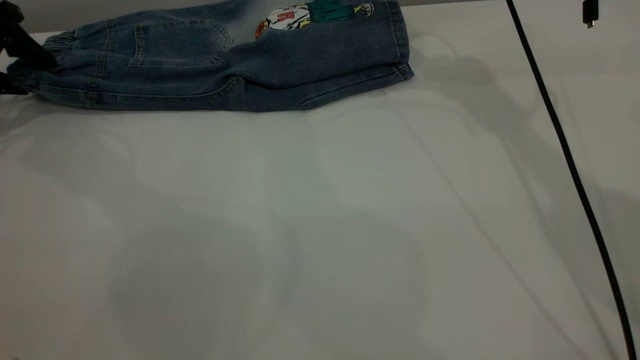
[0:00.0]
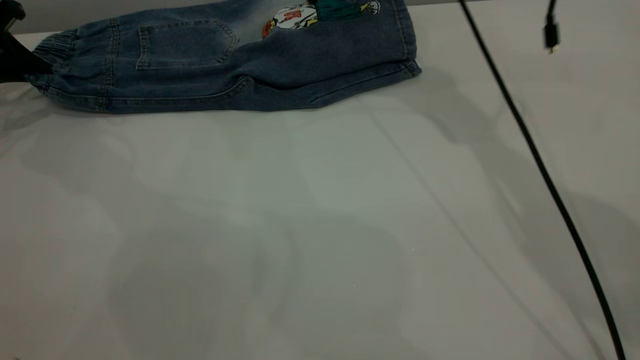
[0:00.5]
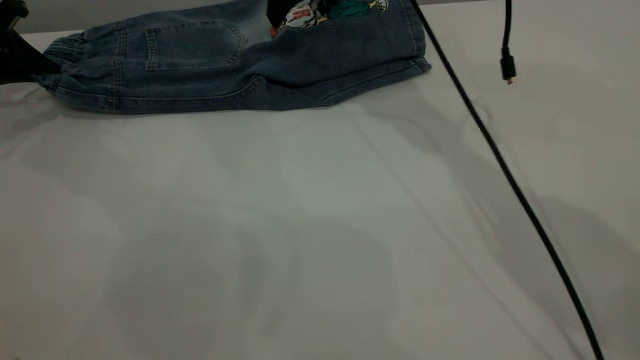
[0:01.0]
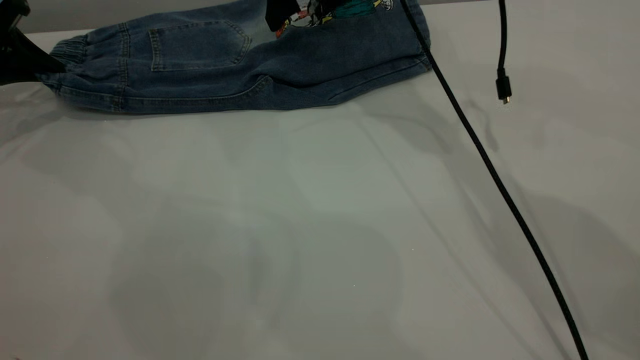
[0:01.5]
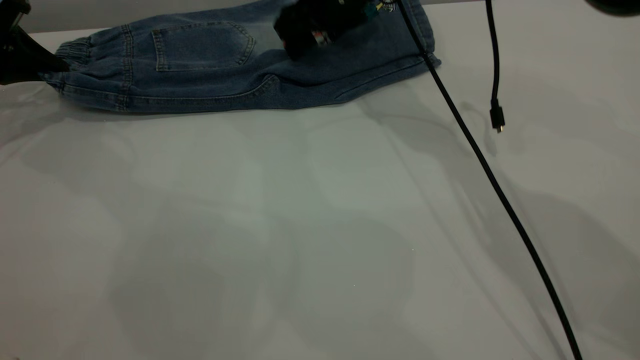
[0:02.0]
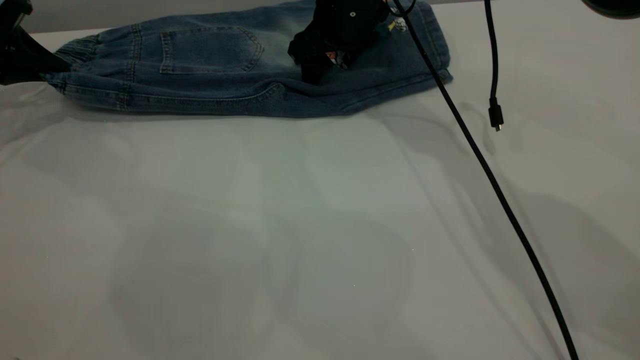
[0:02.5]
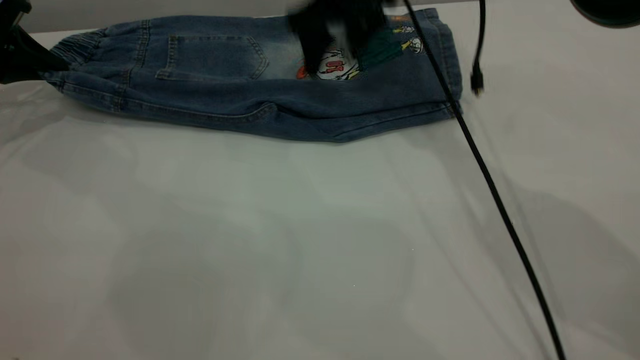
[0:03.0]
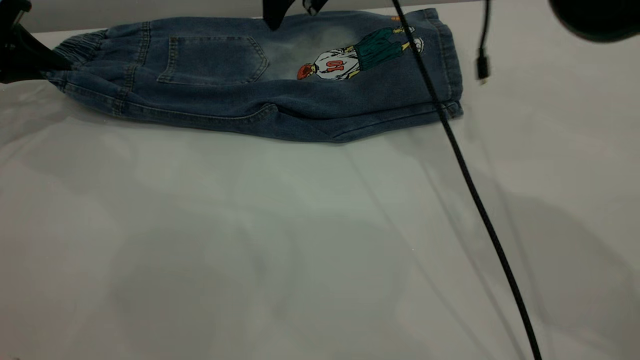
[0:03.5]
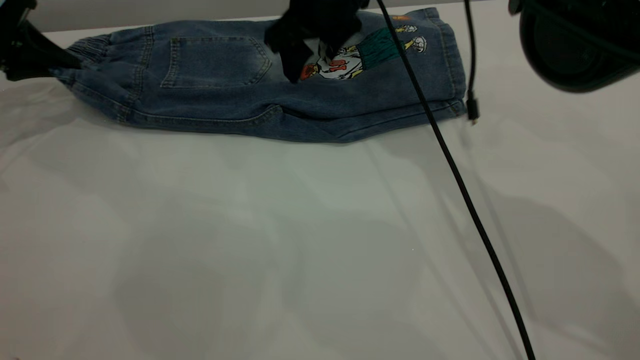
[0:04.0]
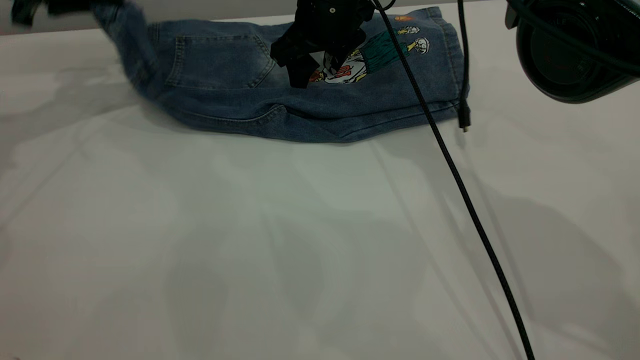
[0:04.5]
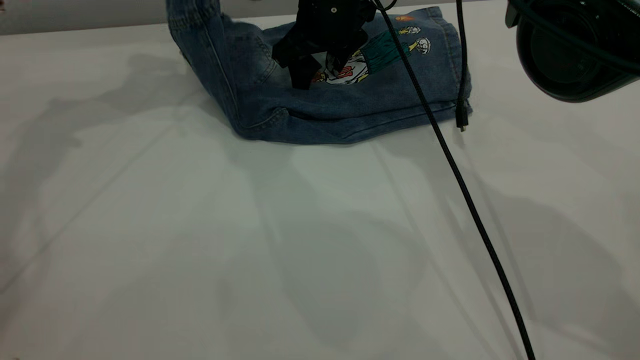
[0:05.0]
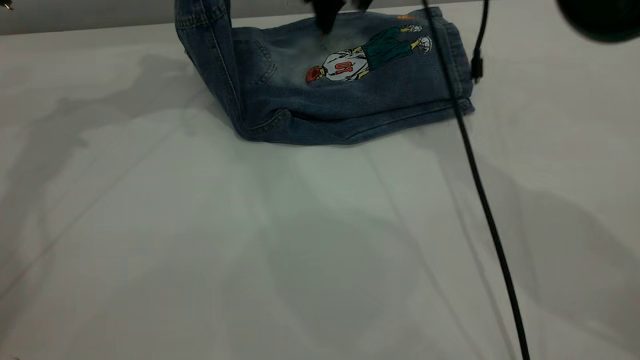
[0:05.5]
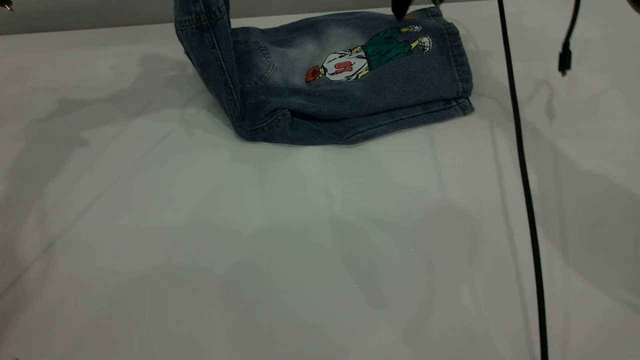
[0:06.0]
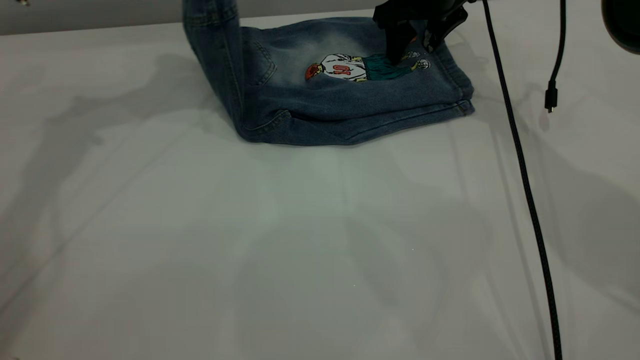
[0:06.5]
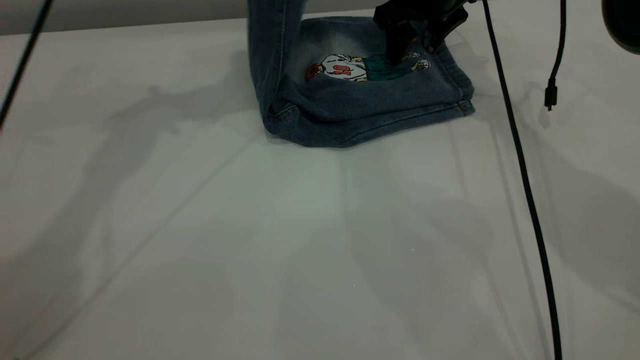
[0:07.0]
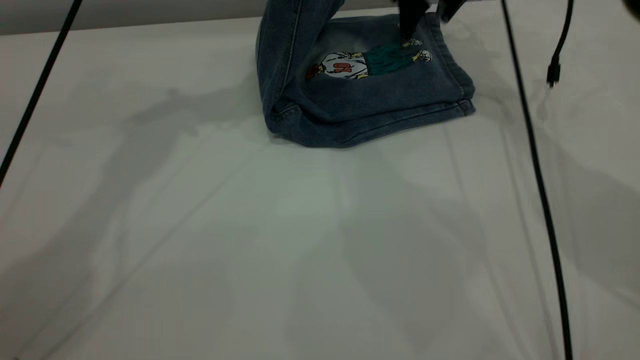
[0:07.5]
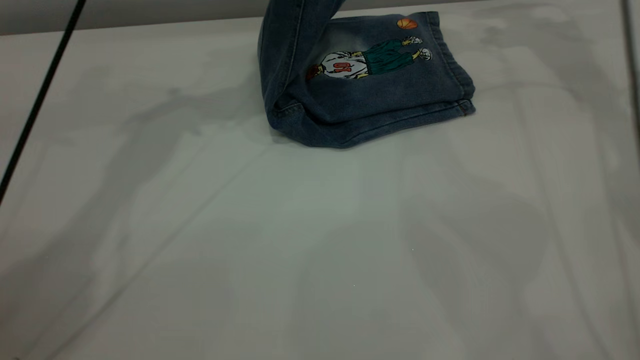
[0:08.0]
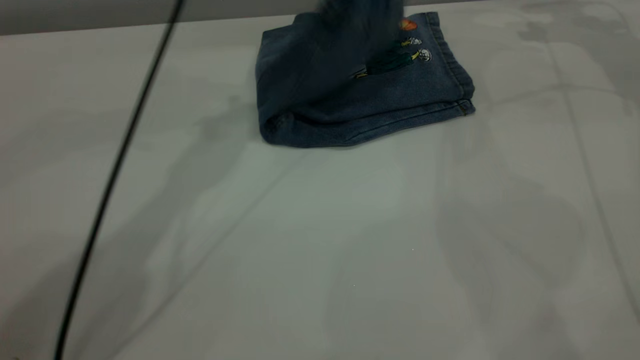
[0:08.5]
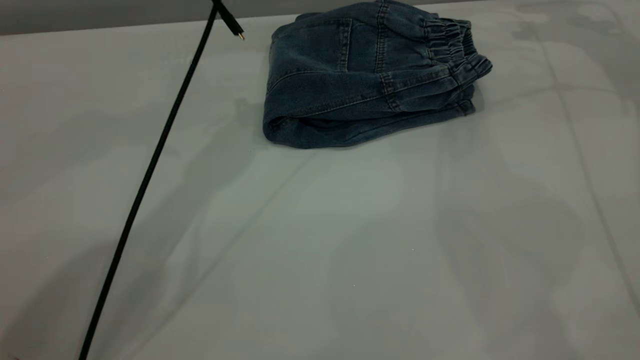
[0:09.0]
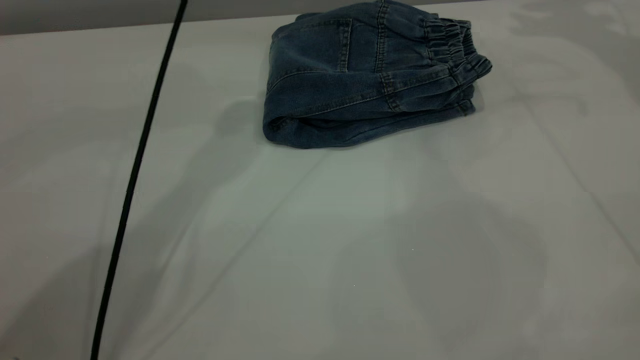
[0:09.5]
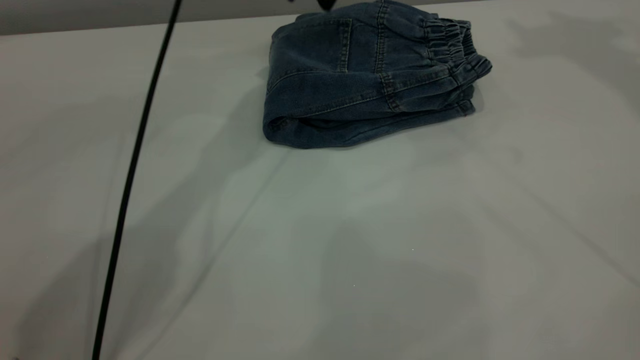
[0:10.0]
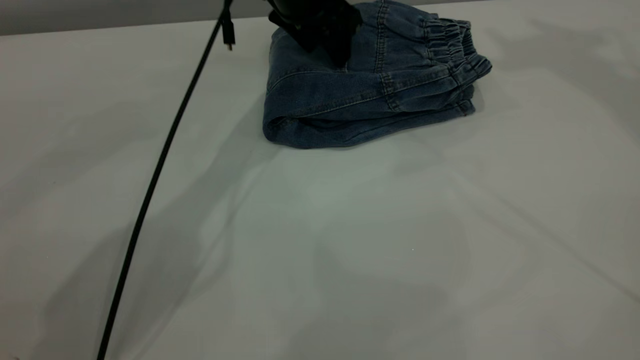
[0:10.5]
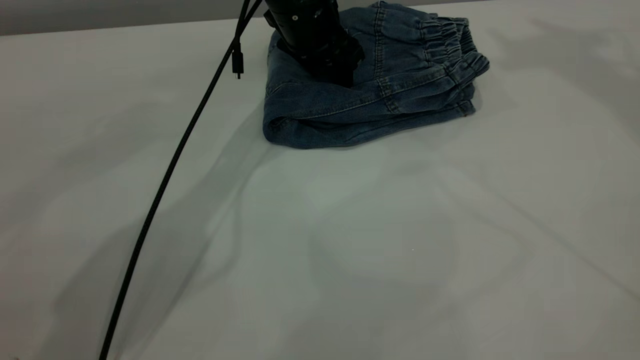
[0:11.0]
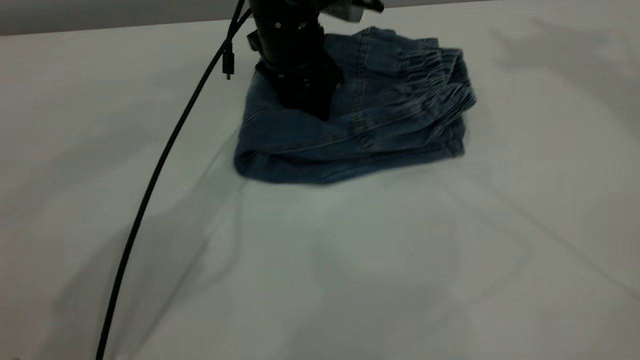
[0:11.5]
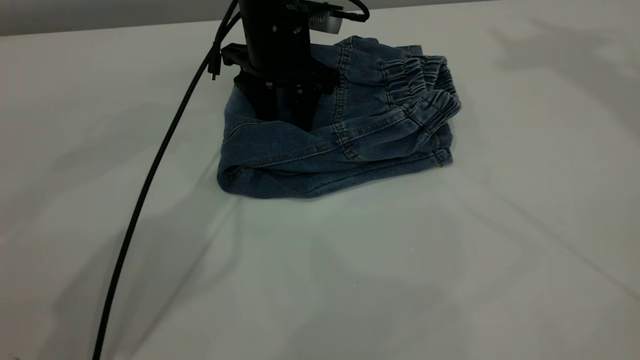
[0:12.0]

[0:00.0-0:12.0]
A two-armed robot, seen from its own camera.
Step, 0:00.0 to 0:09.0: Fold the pants from left to right.
0:00.0 to 0:02.0: The right gripper moves downward and to the left, roughly 15 cm. Meanwhile the left gripper closes up.
0:02.0 to 0:04.0: The right gripper moves approximately 10 cm upward and comes back.
0:04.0 to 0:06.0: The right gripper heads to the right and forward, covering roughly 15 cm. Meanwhile the left gripper travels to the right and upward by approximately 20 cm.
0:06.0 to 0:08.0: Both grippers move to the right, approximately 15 cm.
0:08.0 to 0:10.0: The right gripper shifts approximately 30 cm upward. The left gripper moves downward, roughly 10 cm, and opens its fingers.
0:10.0 to 0:12.0: The left gripper heads downward, covering about 10 cm.

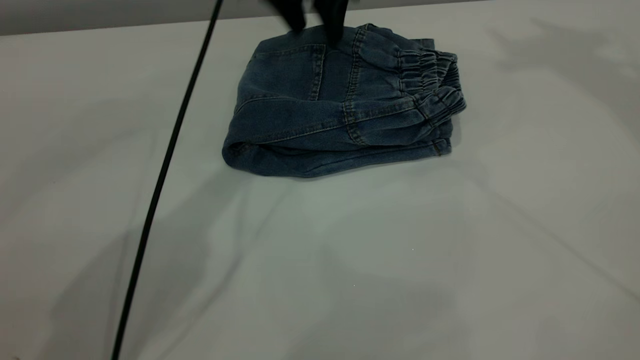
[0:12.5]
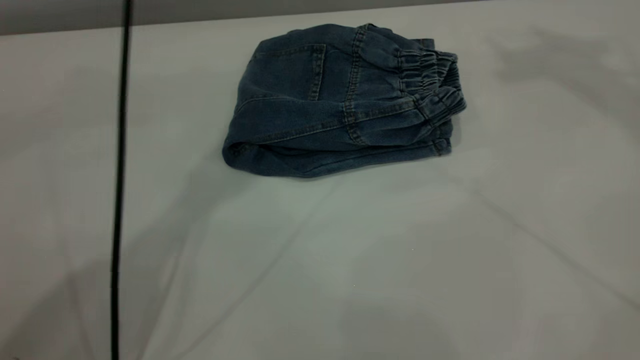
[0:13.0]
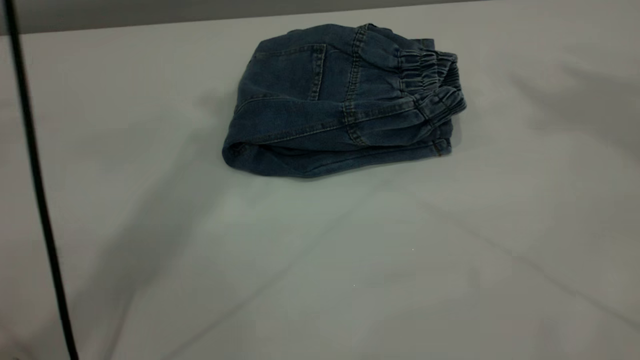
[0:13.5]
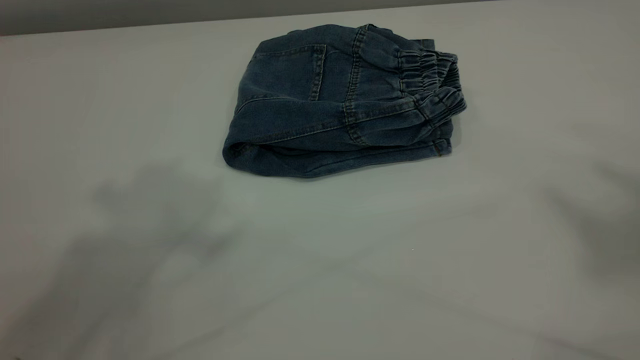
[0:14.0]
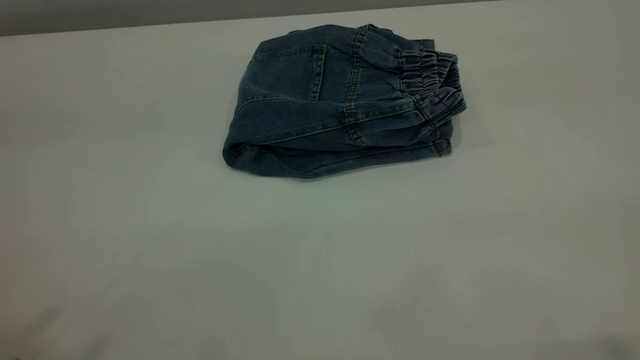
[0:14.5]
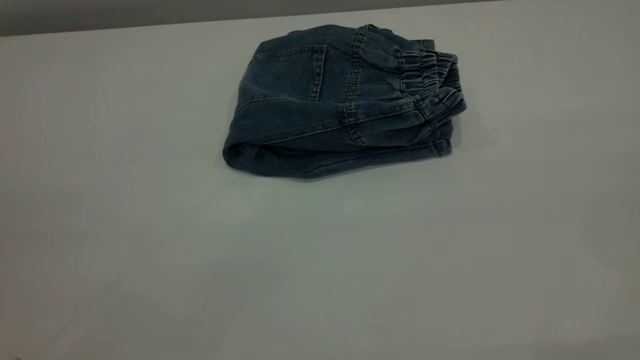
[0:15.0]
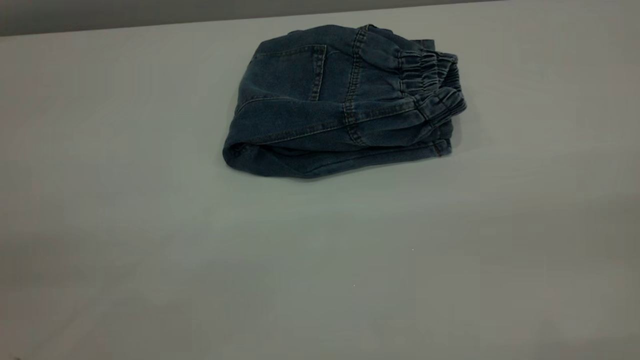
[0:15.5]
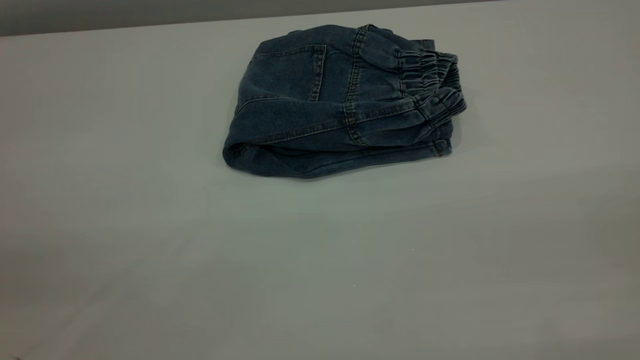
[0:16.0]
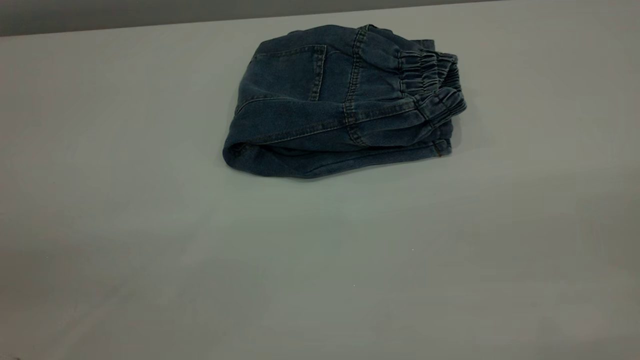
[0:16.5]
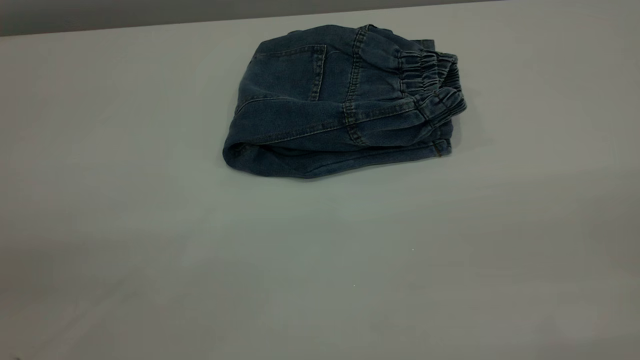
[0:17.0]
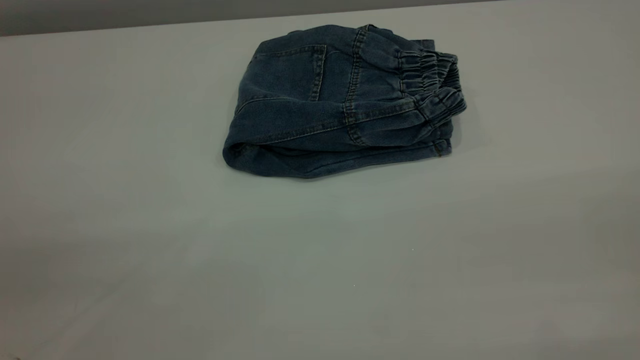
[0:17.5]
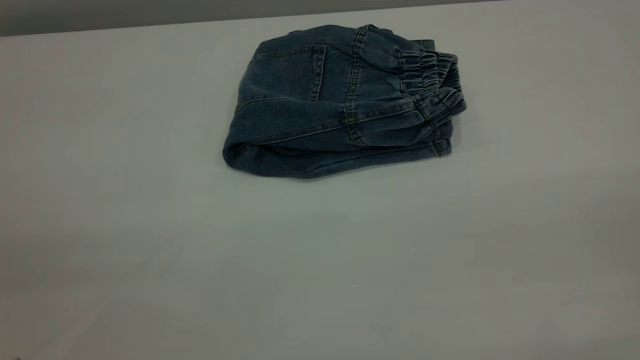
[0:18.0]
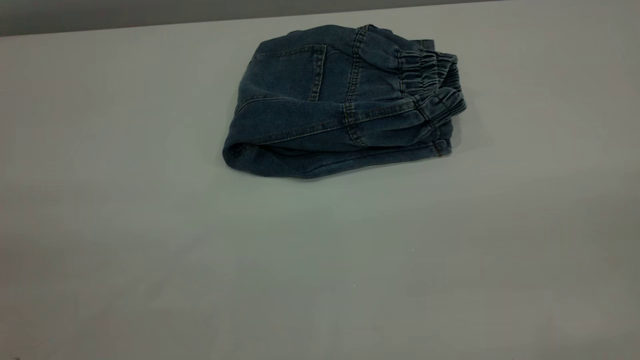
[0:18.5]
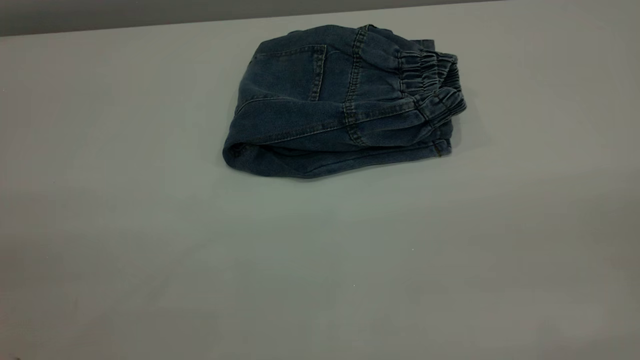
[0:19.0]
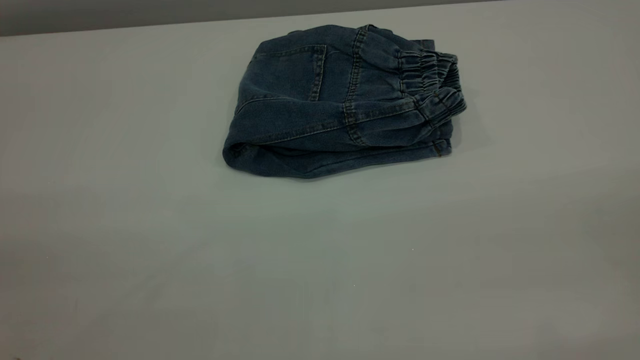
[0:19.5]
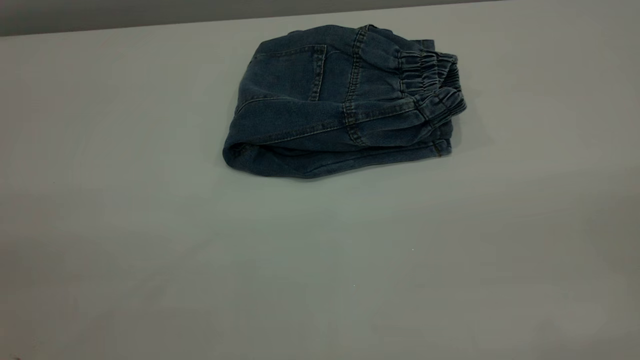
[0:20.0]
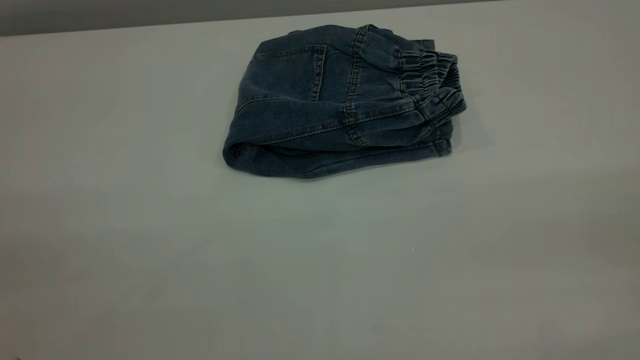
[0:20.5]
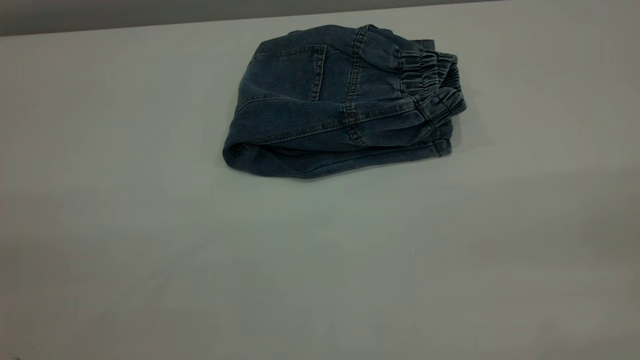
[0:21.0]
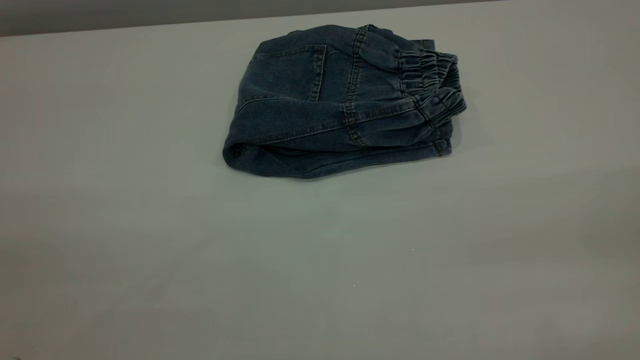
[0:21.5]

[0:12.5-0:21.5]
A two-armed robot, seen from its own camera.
0:12.5 to 0:14.5: The left gripper heads backward, upward and to the left, covering roughly 50 cm. The right gripper goes roughly 35 cm backward.
